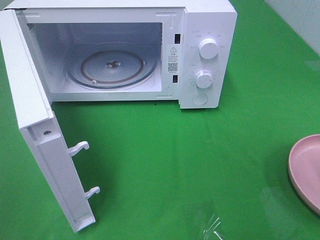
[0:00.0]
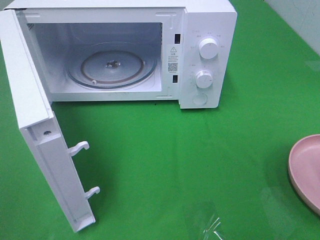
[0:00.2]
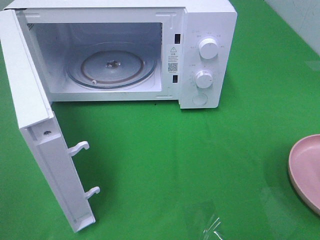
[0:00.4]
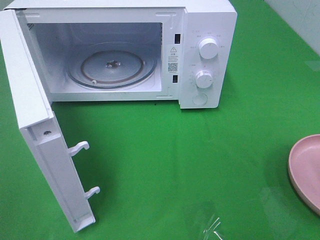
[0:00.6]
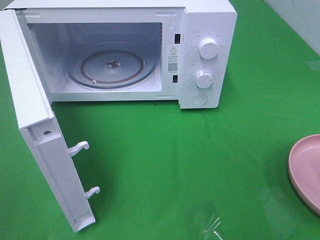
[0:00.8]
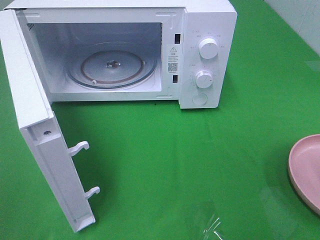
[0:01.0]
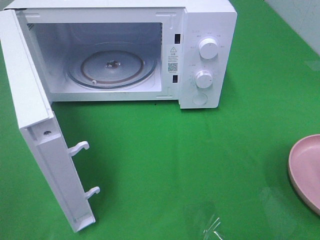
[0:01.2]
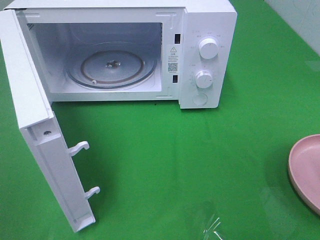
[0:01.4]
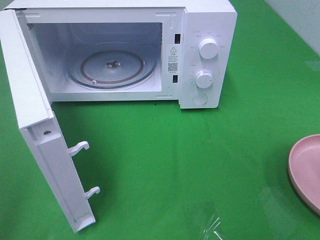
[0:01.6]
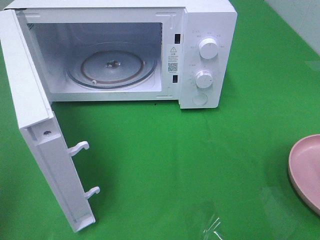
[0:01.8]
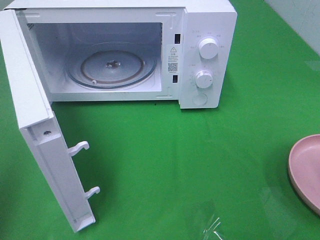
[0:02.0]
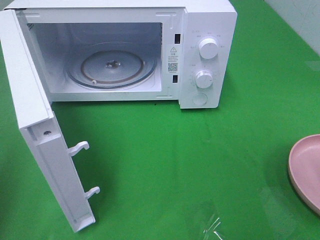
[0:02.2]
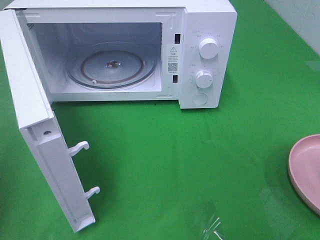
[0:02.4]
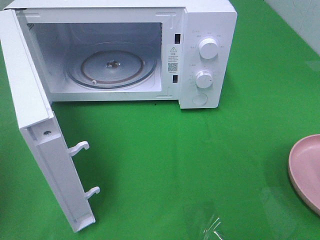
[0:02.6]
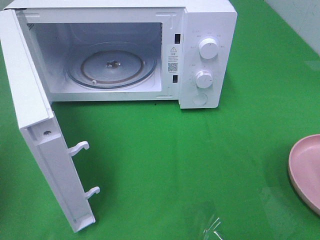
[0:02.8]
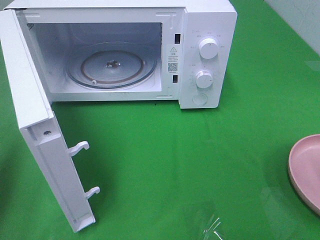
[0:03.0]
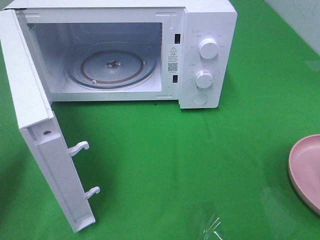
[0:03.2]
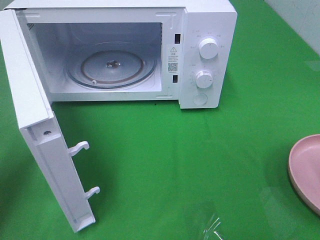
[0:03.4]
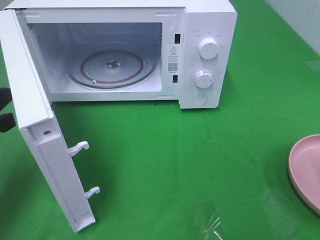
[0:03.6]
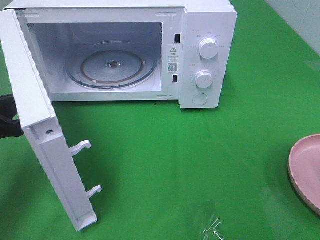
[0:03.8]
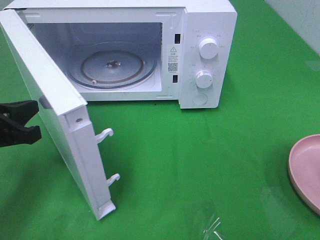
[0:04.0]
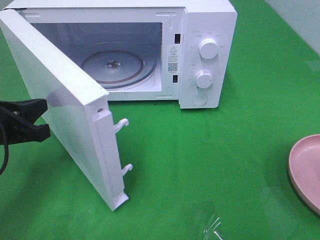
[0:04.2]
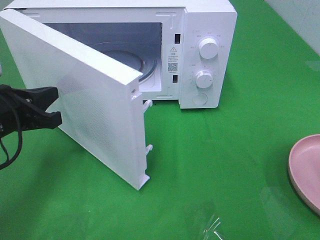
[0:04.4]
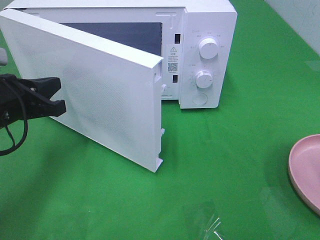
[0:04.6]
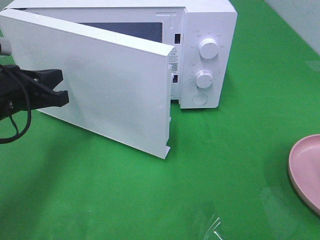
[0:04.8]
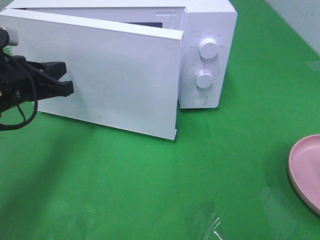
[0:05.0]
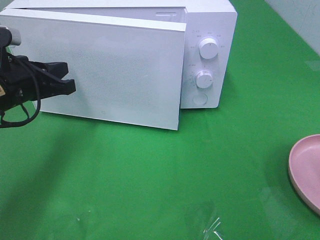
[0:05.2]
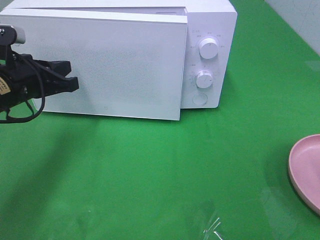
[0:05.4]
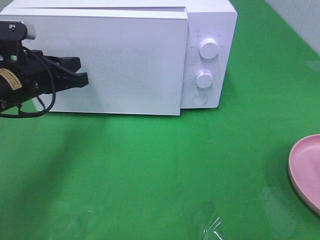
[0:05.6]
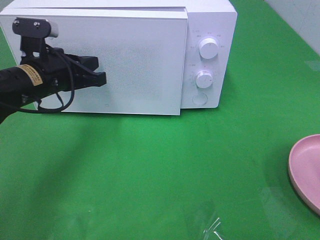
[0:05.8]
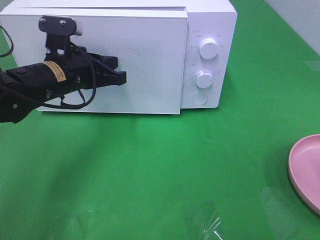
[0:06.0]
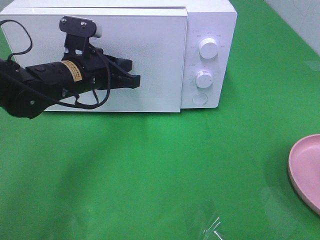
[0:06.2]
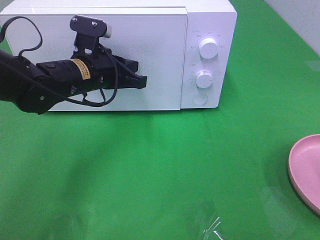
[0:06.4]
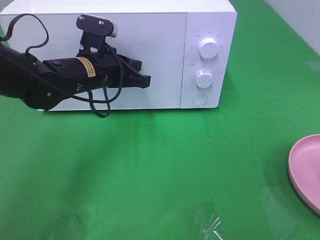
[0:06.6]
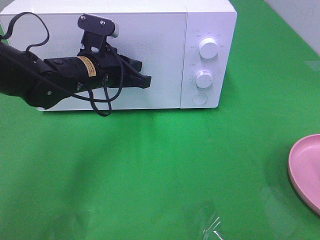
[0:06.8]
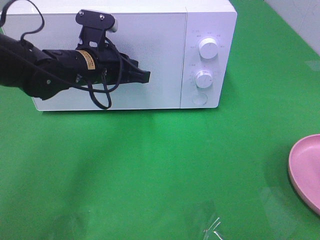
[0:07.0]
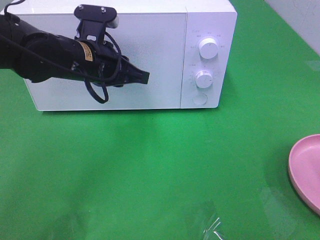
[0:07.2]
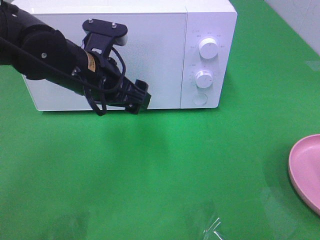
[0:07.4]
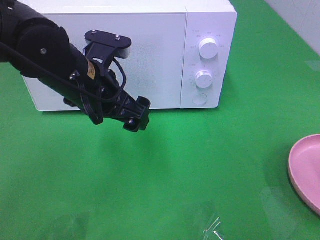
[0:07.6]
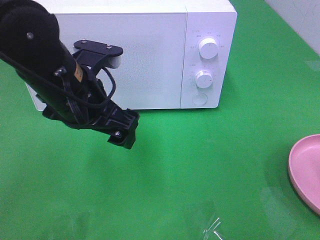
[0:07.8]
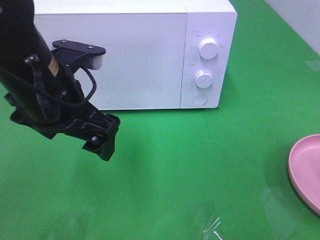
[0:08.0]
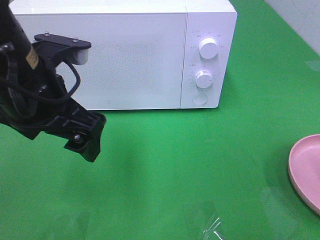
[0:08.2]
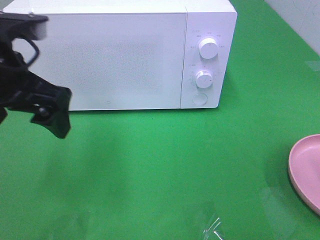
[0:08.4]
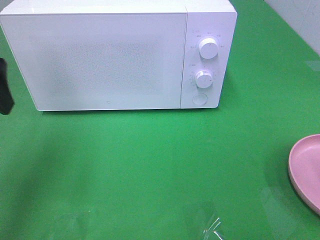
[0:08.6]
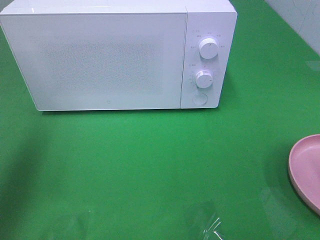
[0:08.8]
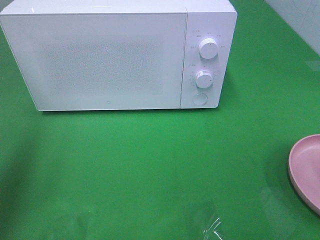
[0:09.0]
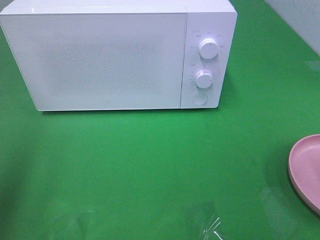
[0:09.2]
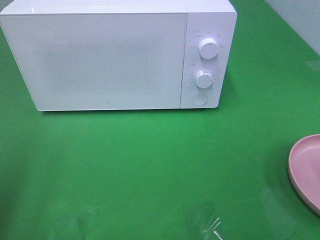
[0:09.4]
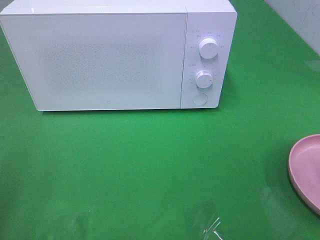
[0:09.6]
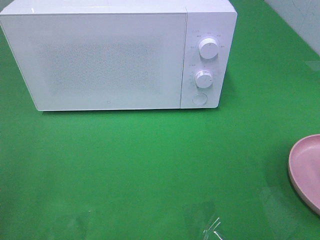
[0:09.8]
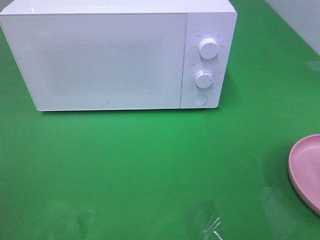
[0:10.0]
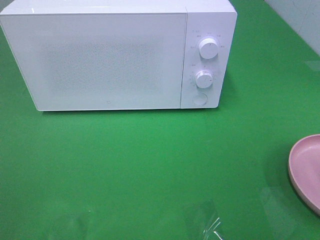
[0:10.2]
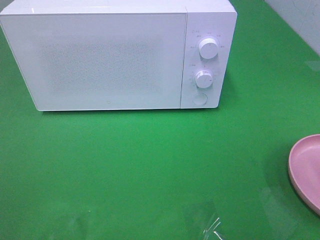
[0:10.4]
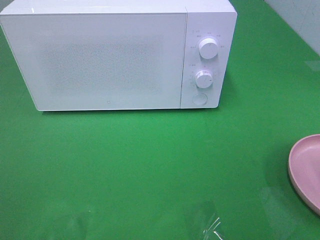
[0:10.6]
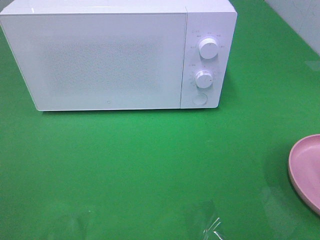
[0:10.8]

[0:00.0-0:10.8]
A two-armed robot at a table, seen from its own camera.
Task of the whole recording: Heat the burger.
Step, 0:00.0 to 0:07.2: Left hand: close the microwave door.
0:01.6 to 0:03.0: The left gripper travels forward and downward by roughly 15 cm, and closes its fingers.
0:03.0 to 0:04.6: The left gripper is displaced to the right, forward and downward by about 15 cm.
0:04.6 to 0:06.2: The left gripper travels to the right and forward by some 15 cm.
0:06.2 to 0:07.8: The left gripper heads backward, covering some 10 cm, and opens its fingers.
0:07.8 to 0:09.2: The left gripper moves to the left, backward and upward, about 25 cm.
0:09.2 to 0:10.8: The left gripper is displaced backward by some 15 cm.

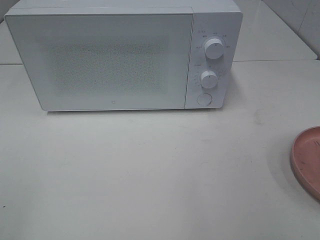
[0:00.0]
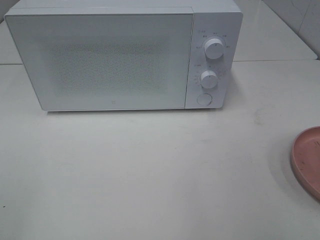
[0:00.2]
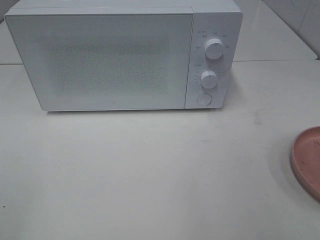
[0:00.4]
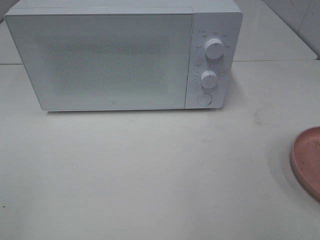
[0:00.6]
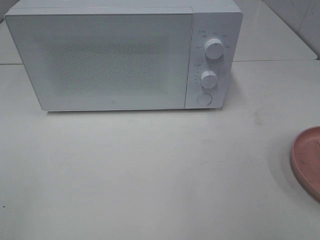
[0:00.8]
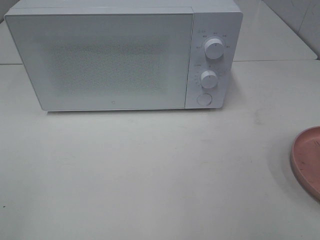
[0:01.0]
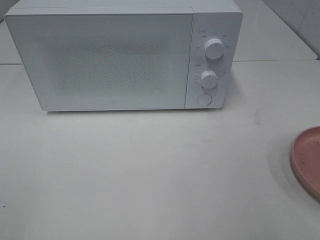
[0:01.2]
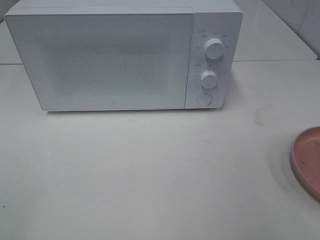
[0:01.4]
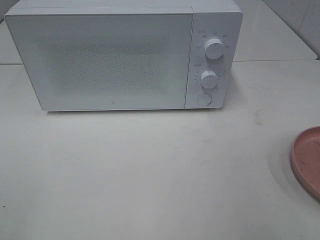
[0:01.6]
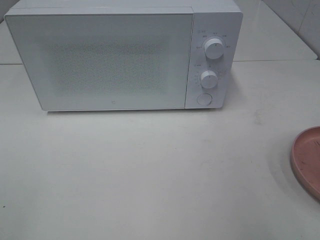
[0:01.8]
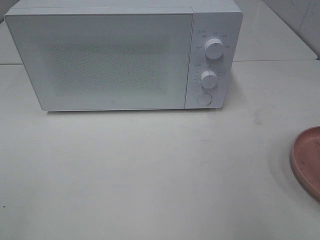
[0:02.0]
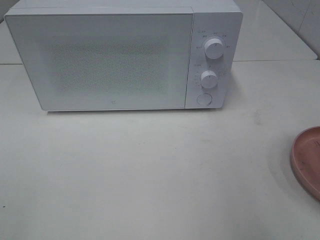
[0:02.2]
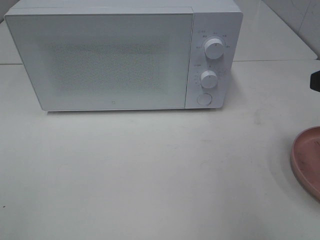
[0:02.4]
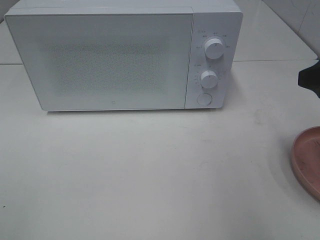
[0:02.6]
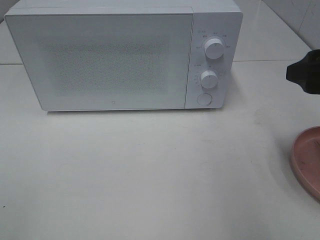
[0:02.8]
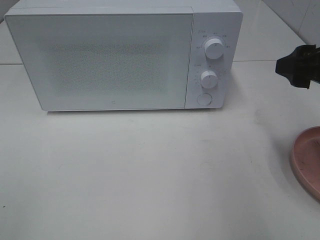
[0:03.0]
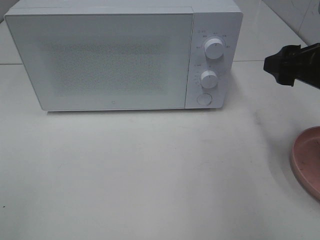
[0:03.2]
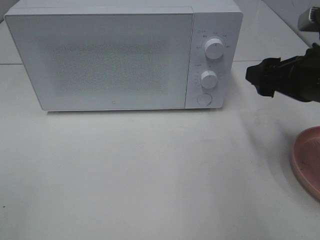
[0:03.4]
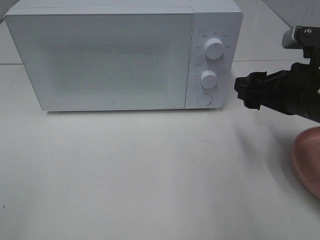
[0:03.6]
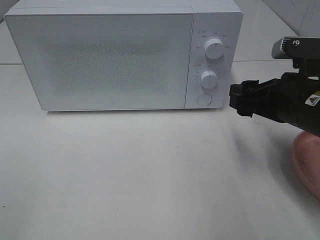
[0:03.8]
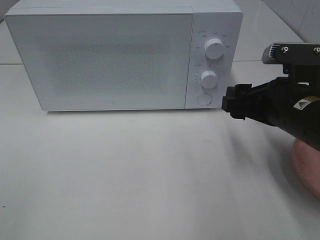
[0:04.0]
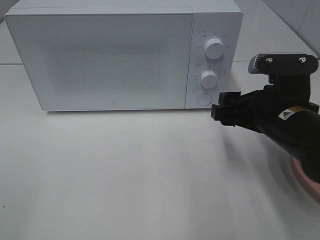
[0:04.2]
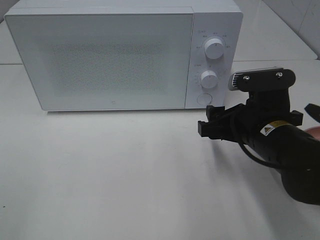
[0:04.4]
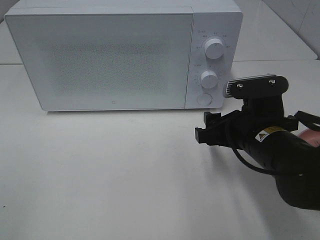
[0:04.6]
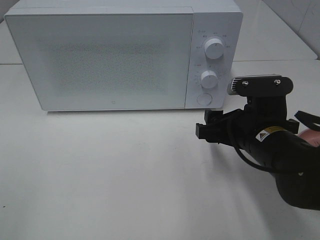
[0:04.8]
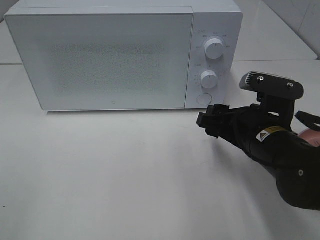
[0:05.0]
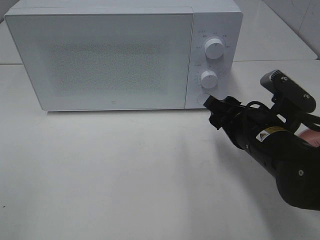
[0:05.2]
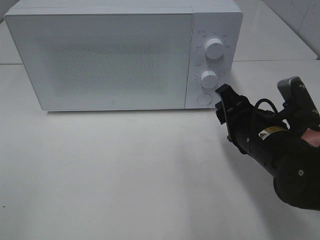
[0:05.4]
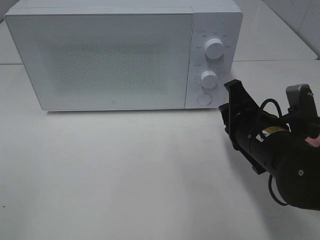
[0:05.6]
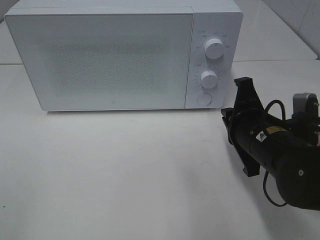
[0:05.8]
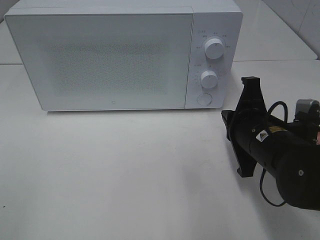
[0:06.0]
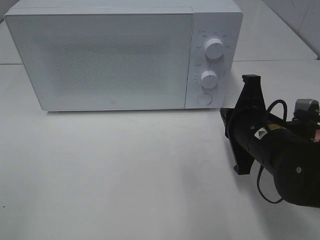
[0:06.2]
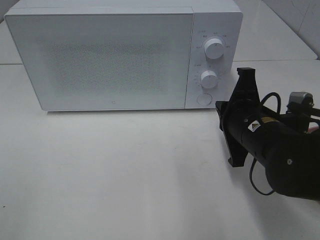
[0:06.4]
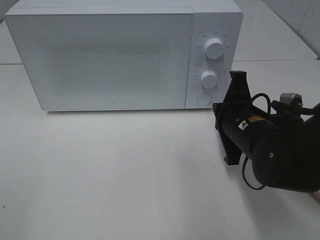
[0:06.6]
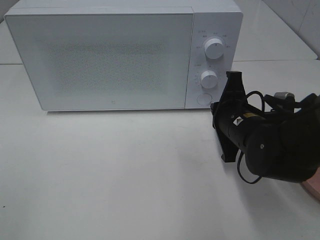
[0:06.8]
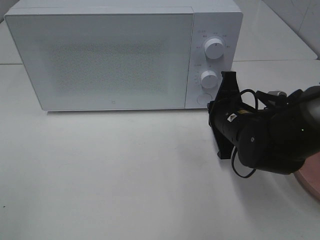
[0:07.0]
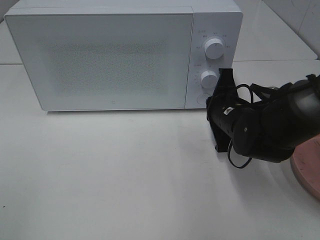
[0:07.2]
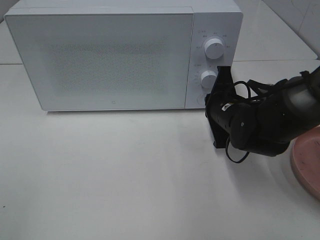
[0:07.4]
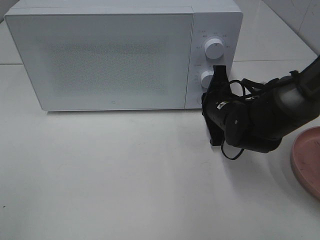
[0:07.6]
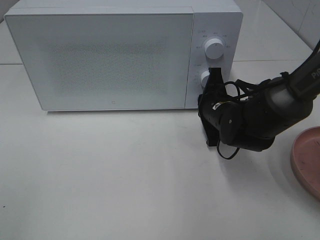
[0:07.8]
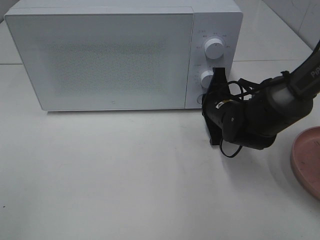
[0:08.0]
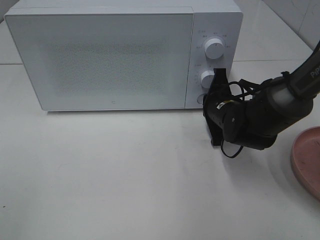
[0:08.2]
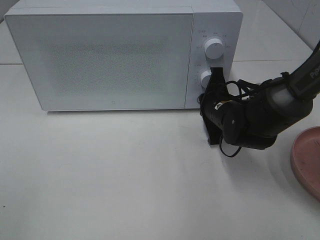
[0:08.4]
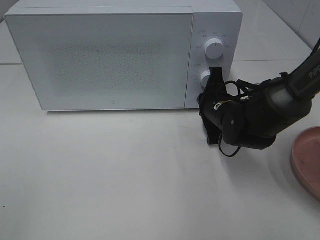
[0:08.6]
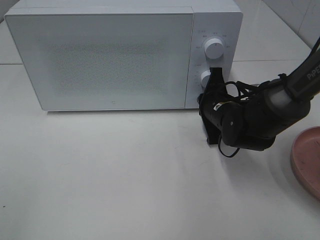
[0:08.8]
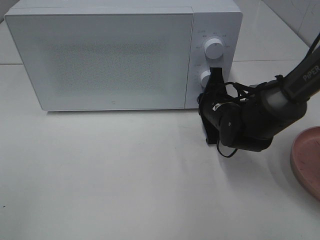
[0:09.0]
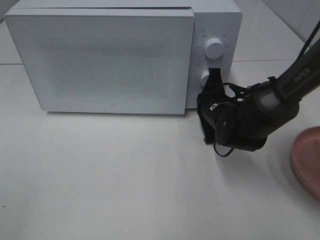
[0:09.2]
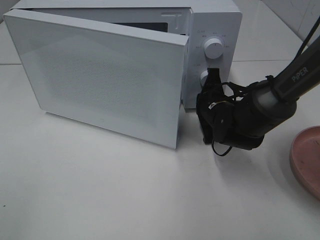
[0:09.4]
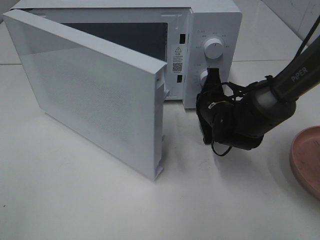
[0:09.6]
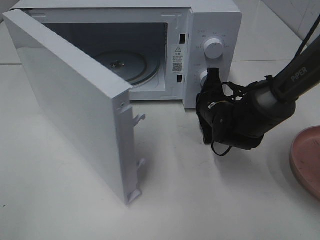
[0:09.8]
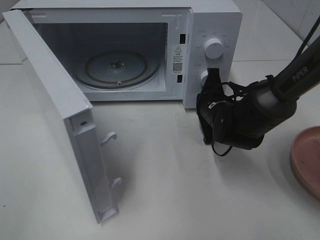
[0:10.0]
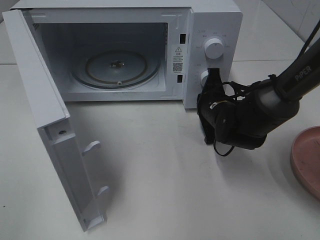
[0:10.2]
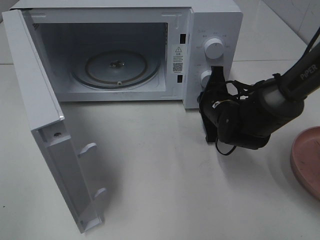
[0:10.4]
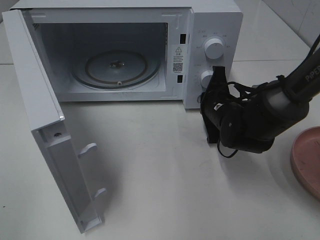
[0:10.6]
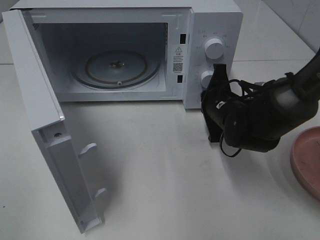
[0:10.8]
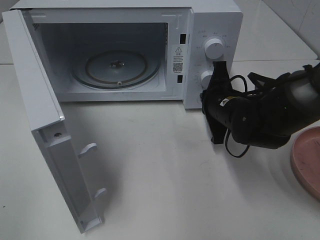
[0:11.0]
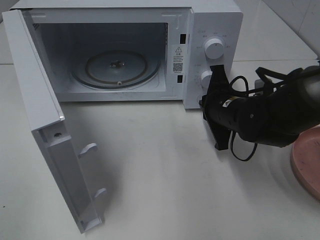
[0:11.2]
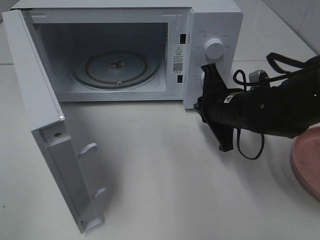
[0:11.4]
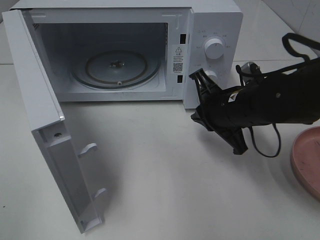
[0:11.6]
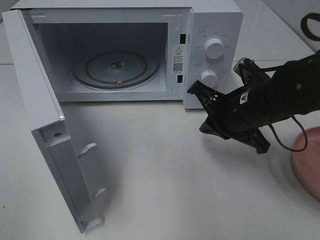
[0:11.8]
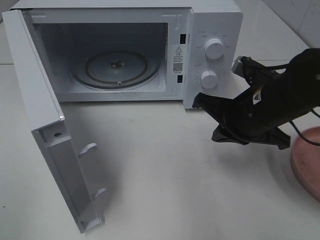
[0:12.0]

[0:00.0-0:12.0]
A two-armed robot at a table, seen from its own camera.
Task of the whole recording: Heat the burger.
Step, 0:00.0 to 0:11.2: Right hand: press the switch.
0:01.6 to 0:03.0: The right gripper heads forward, covering approximately 15 cm.
0:03.0 to 0:04.4: The right gripper heads downward and to the left, covering roughly 15 cm.
0:04.4 to 0:06.0: The right gripper closes up.
0:06.0 to 0:07.6: The right gripper travels forward by approximately 10 cm.
0:07.6 to 0:09.0: There are only small adjustments of the grippers.
0:10.4 to 0:12.0: The right gripper is displaced backward and upward by approximately 15 cm.
